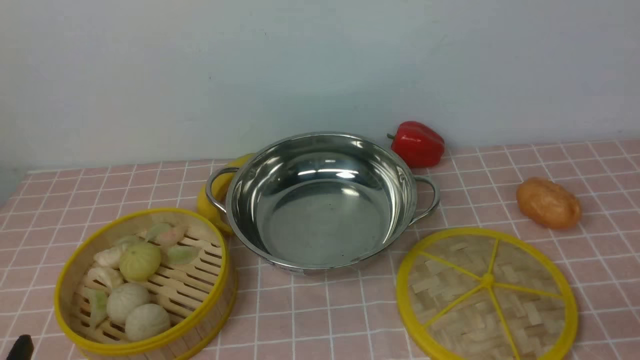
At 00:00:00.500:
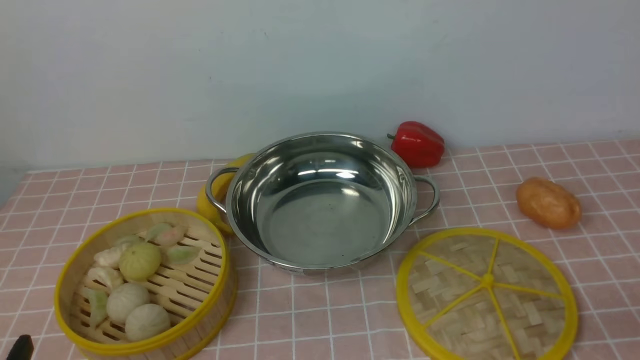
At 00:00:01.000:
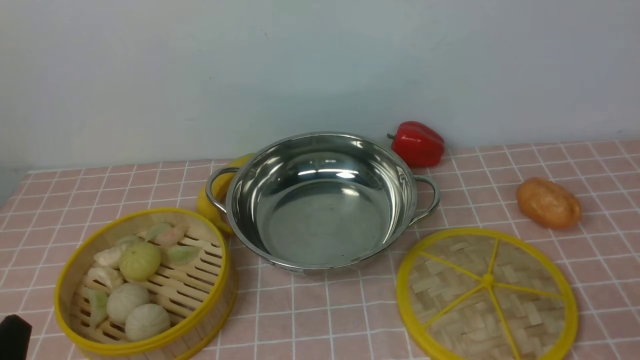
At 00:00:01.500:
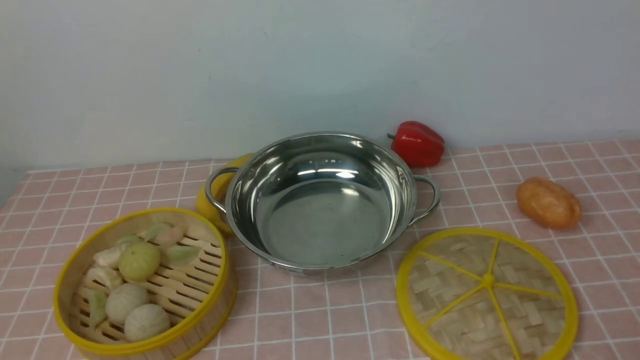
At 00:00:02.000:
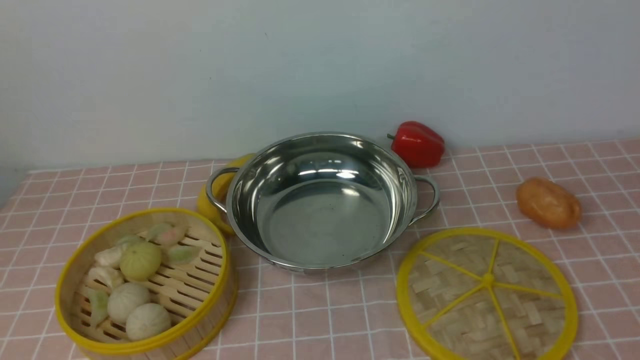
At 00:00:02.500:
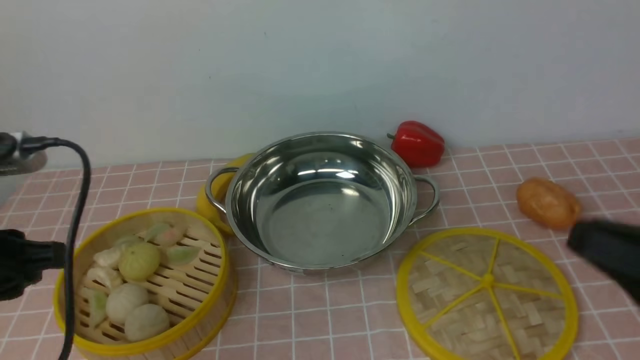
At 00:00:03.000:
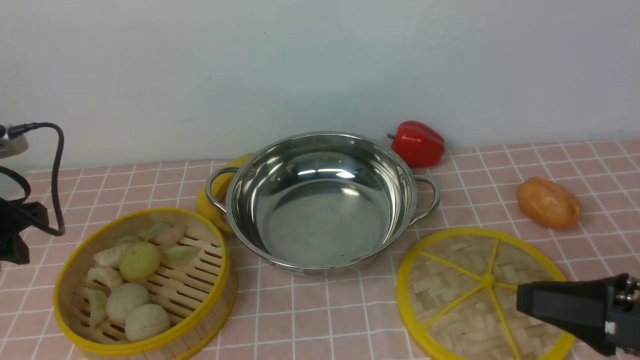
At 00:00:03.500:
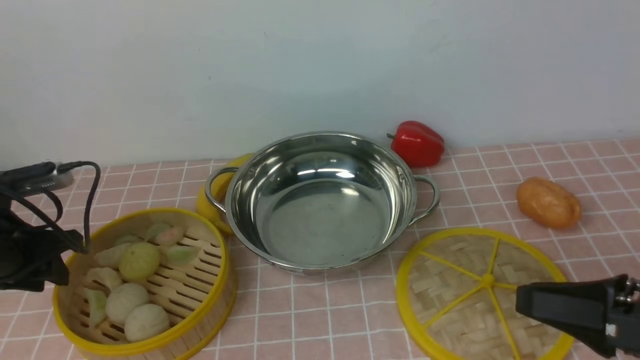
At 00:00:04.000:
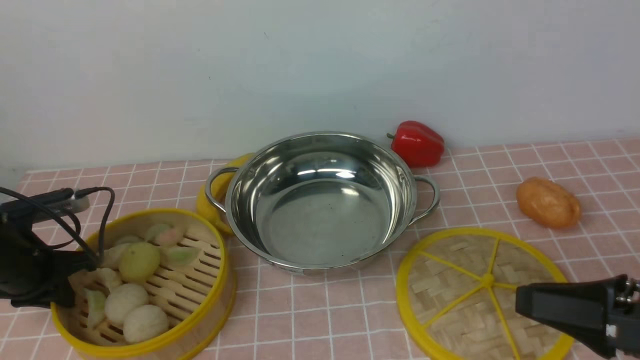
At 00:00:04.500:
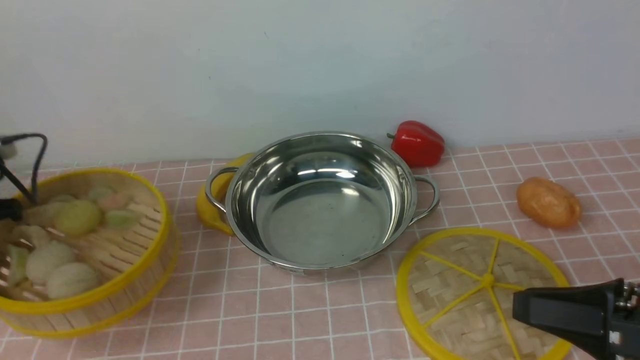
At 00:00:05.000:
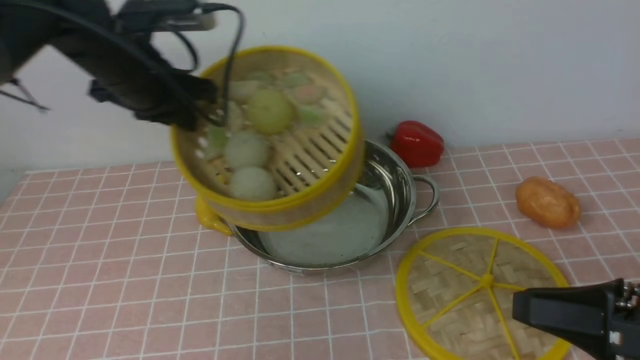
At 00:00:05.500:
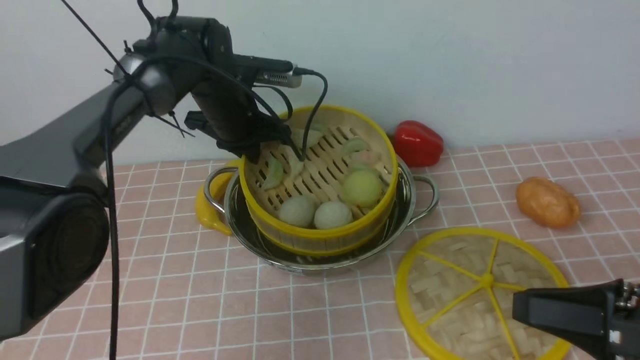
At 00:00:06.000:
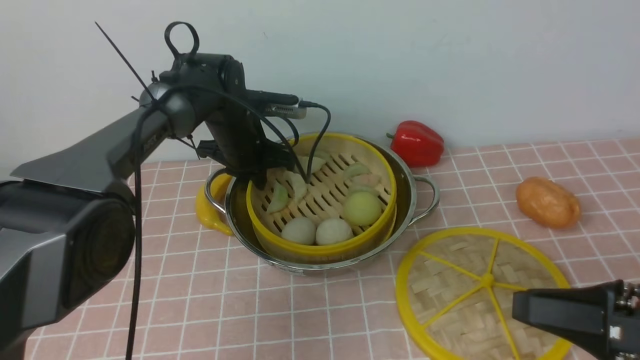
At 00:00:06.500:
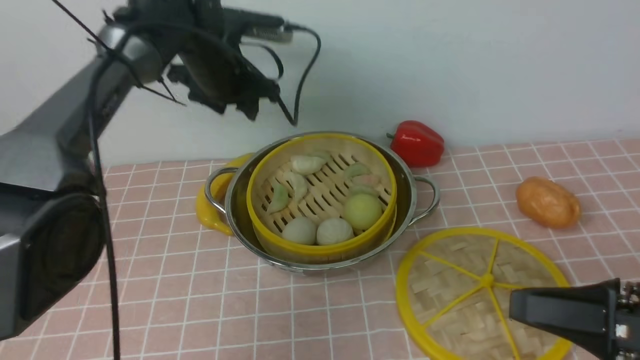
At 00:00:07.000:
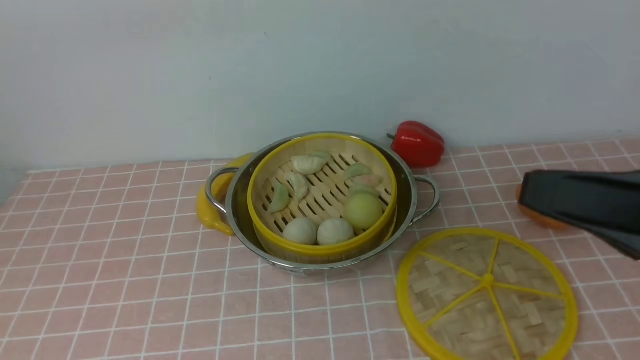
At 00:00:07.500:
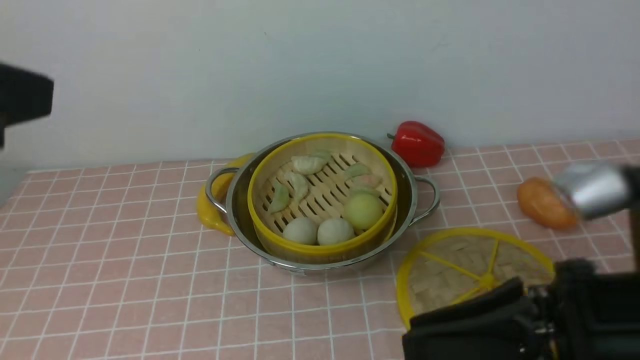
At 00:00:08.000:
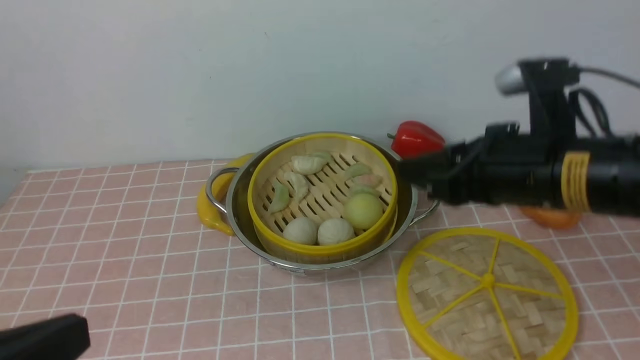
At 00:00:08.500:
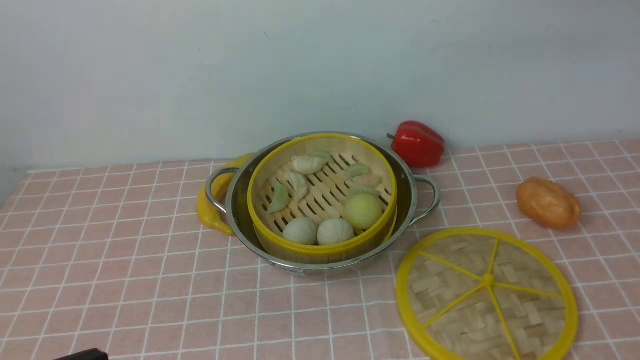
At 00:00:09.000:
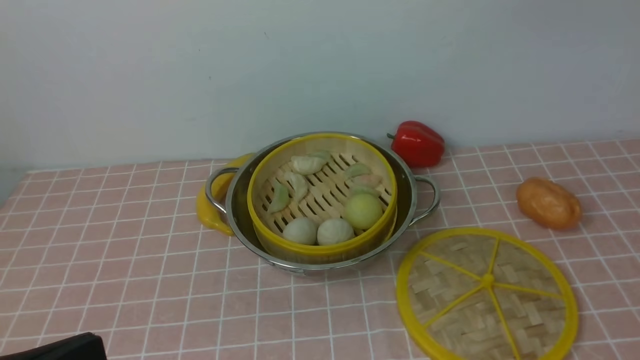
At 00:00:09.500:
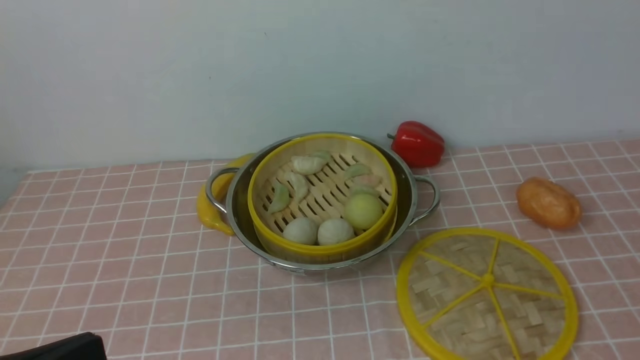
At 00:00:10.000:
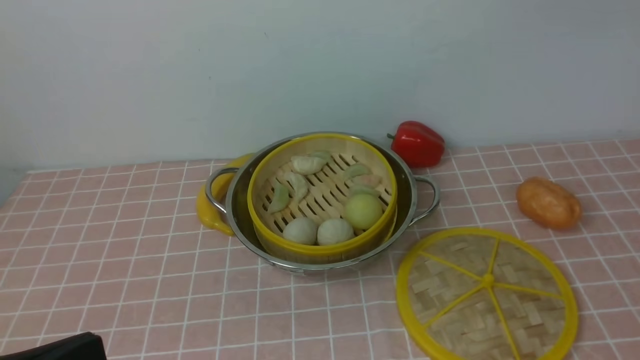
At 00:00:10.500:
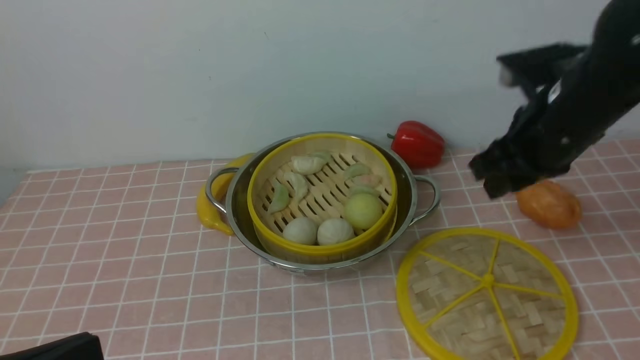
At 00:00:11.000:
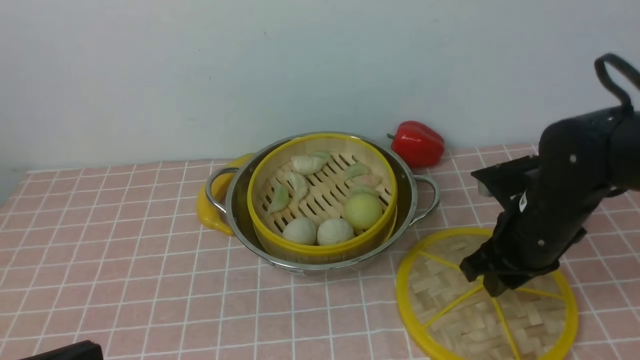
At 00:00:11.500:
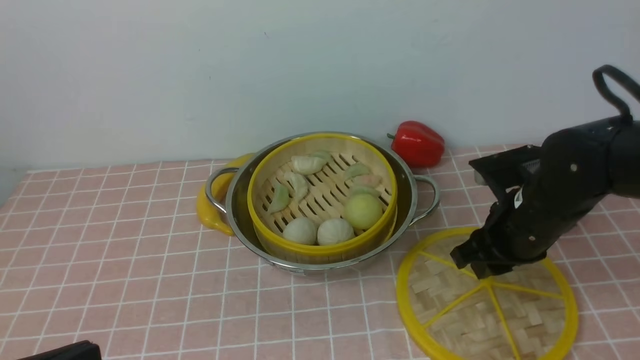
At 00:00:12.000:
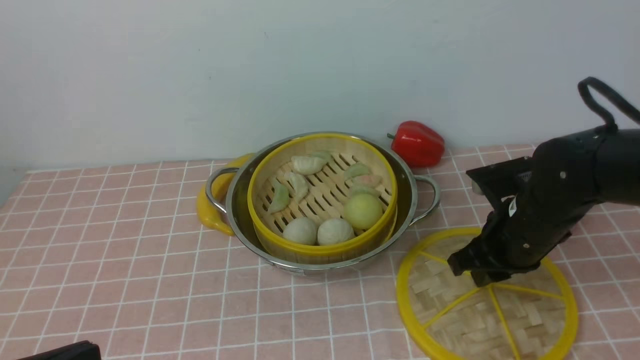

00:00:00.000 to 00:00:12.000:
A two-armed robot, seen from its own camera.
Task of the whole recording: place the steamer in the pot on the pink tablecloth, and put the lid on the steamer.
Step, 00:00:00.000 to 00:00:04.000: use the left arm to lift the steamer closest to it.
Step, 00:00:04.500 to 00:00:06.000: use the left arm to put the steamer into the iron steamer pot in the middle.
00:00:02.000 to 00:00:04.000: The left gripper moves forward and downward, approximately 35 cm, while the right gripper moves downward and forward, about 15 cm.
00:00:04.000 to 00:00:06.000: The left gripper goes about 30 cm to the right and forward.
00:00:06.000 to 00:00:08.000: The right gripper heads to the left, forward and upward, covering roughly 15 cm. Meanwhile the left gripper travels backward and upward by approximately 50 cm, and opens, then closes again.
00:00:08.000 to 00:00:10.000: The right gripper goes roughly 30 cm upward and to the right.
00:00:10.000 to 00:00:12.000: The right gripper heads downward and to the left, covering about 40 cm.

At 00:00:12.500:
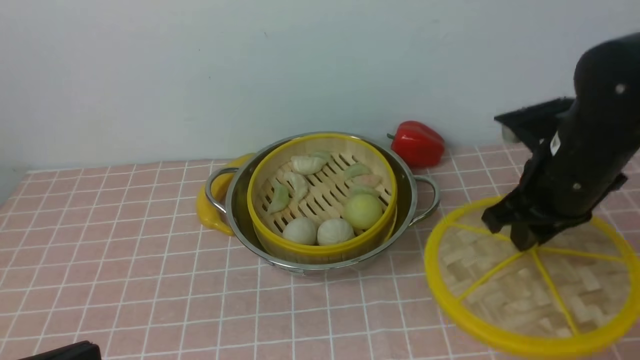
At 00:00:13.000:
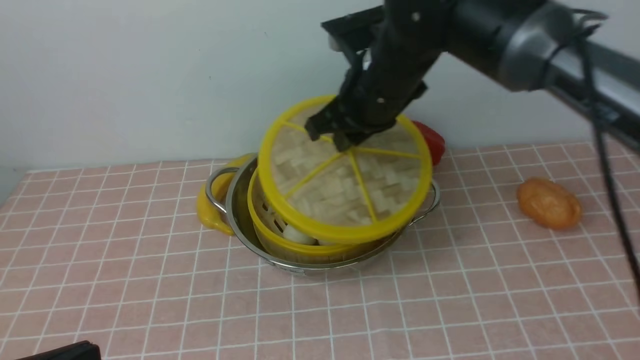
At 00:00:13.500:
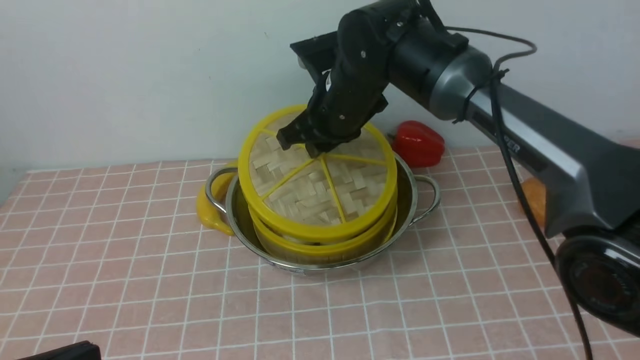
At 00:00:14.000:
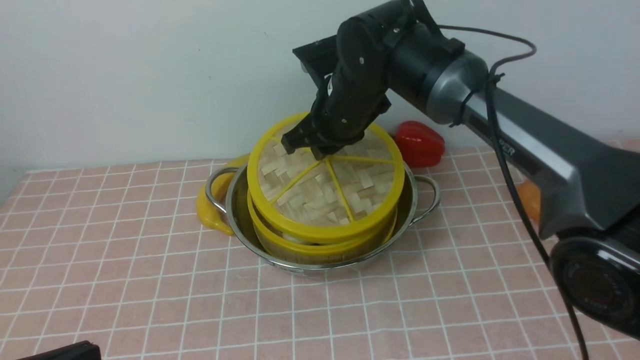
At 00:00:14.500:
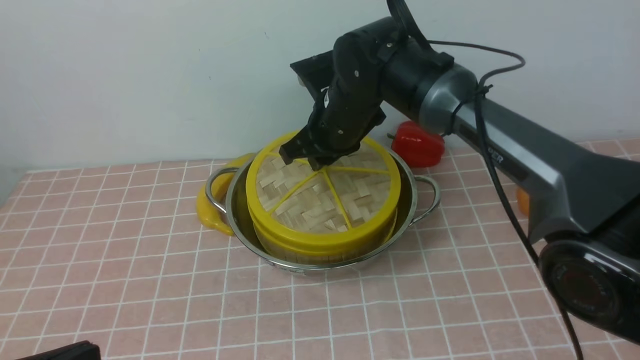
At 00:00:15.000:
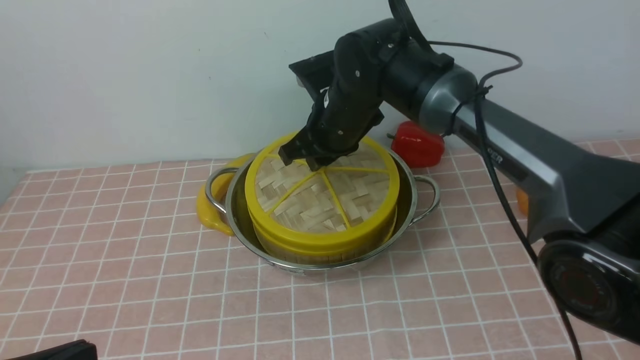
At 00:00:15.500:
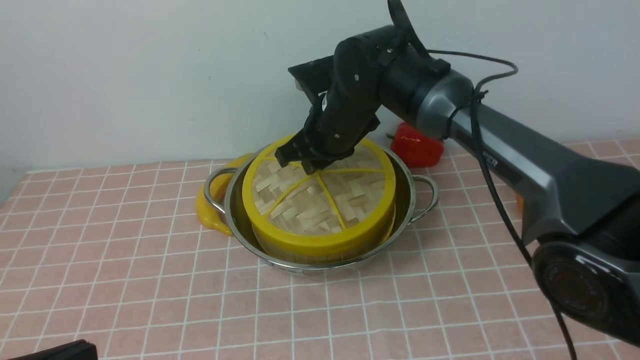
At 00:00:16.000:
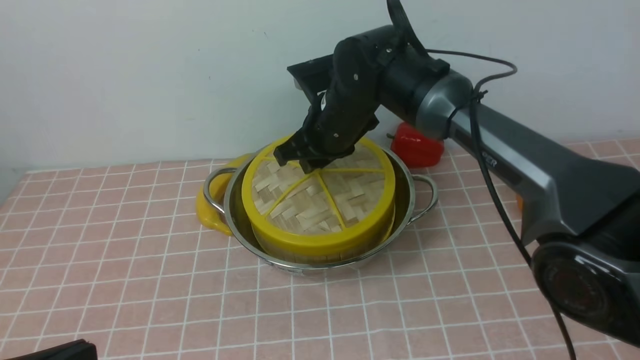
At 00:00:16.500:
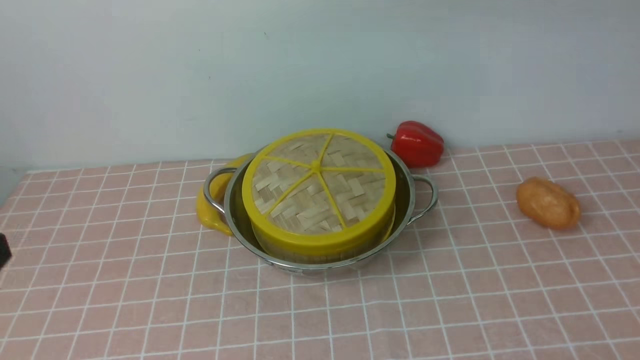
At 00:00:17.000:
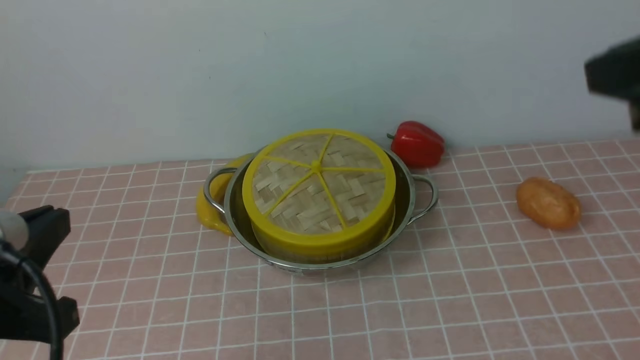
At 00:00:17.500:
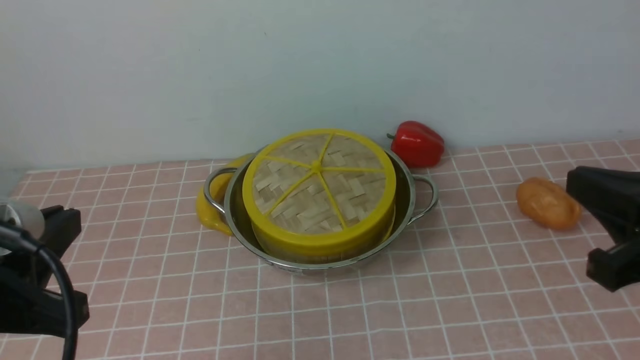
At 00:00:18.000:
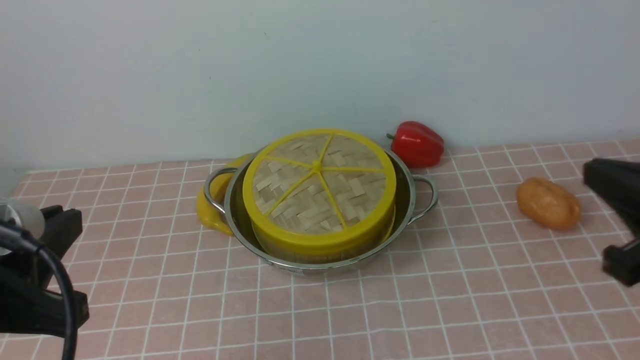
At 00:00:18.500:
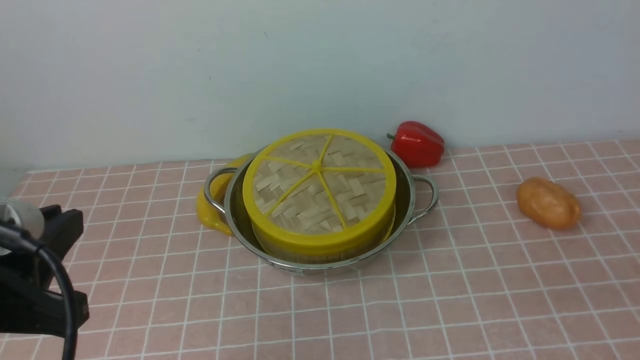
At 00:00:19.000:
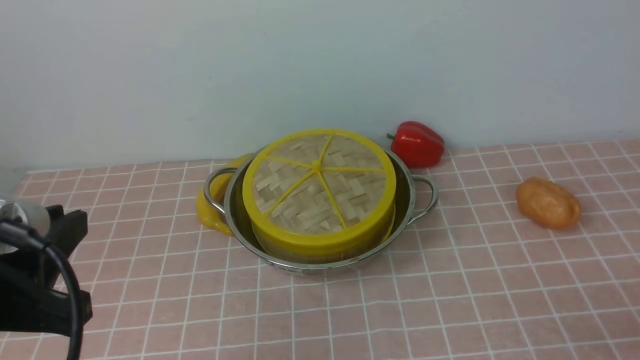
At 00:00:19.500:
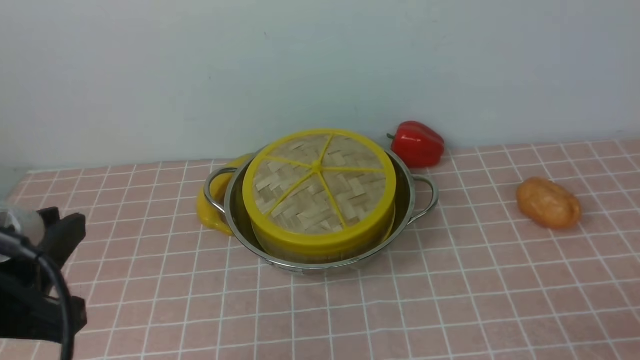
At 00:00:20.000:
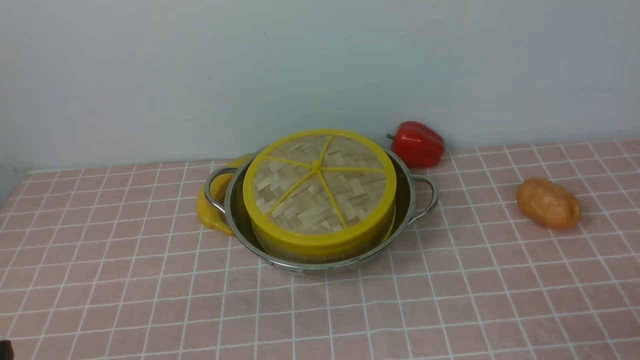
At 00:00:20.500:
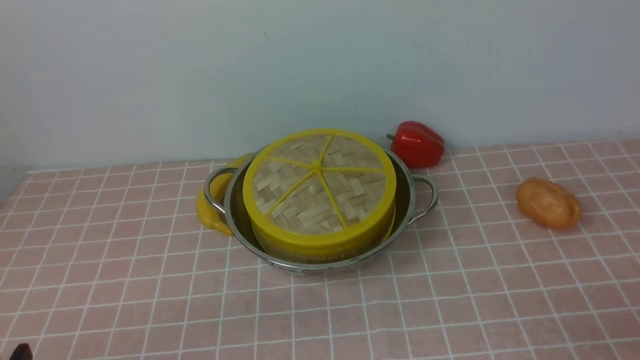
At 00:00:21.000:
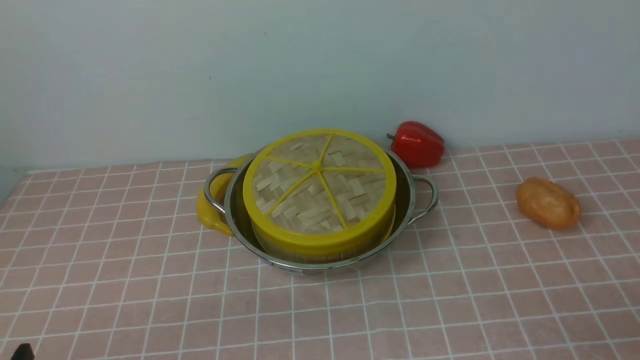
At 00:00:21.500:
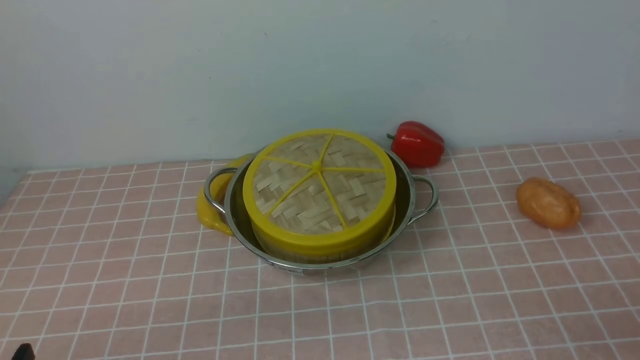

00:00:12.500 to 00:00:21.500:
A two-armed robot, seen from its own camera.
Task of the whole recording: place the steamer in the pot on the pink tablecloth, and put the lid on the steamer.
Step, 00:00:12.500 to 00:00:16.000: use the right arm to place the steamer lid on the steamer.
00:00:12.500 to 00:00:14.500: The right gripper is displaced to the left and forward by about 20 cm.
00:00:14.500 to 00:00:17.000: The left gripper is displaced forward by roughly 5 cm. Meanwhile the right gripper is displaced backward, upward and to the right by roughly 40 cm, and opens, then closes once more.
00:00:17.000 to 00:00:19.500: The right gripper moves downward and backward, some 30 cm, and closes, then reopens.
00:00:19.500 to 00:00:21.500: The left gripper moves downward and backward, roughly 15 cm.
